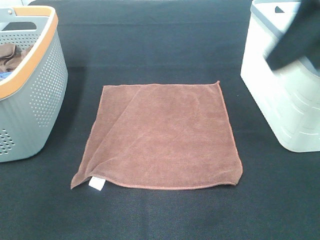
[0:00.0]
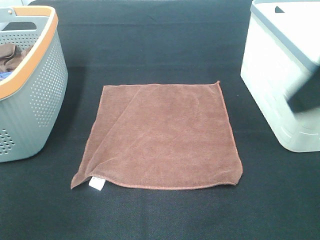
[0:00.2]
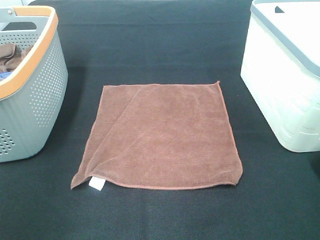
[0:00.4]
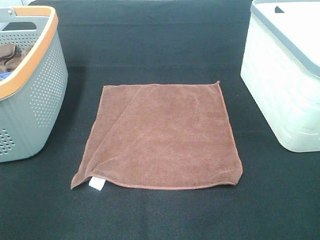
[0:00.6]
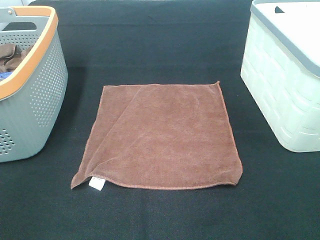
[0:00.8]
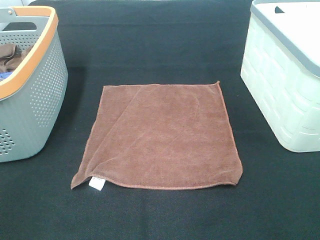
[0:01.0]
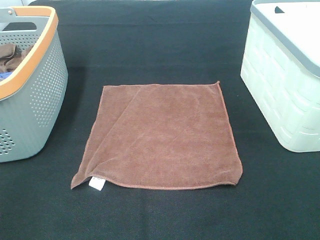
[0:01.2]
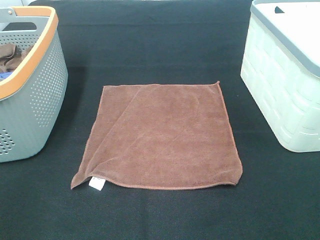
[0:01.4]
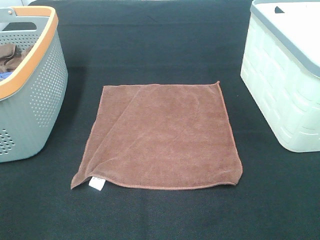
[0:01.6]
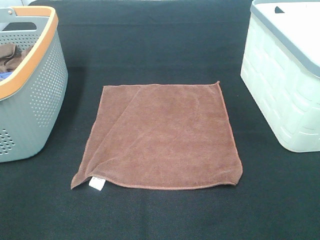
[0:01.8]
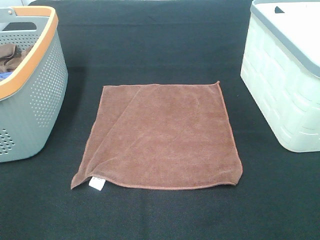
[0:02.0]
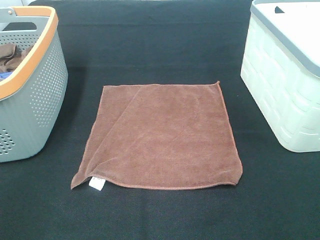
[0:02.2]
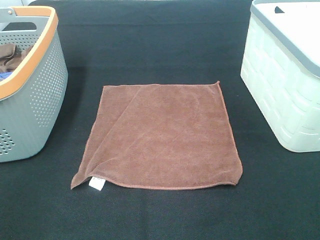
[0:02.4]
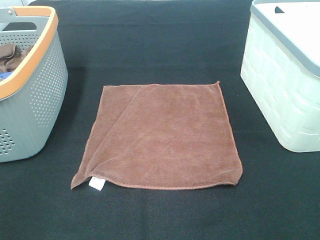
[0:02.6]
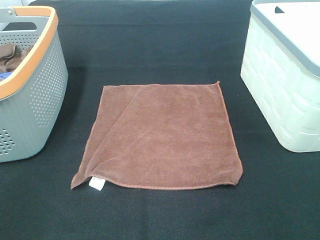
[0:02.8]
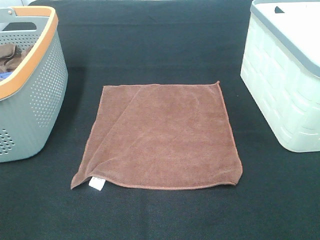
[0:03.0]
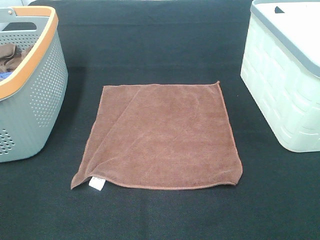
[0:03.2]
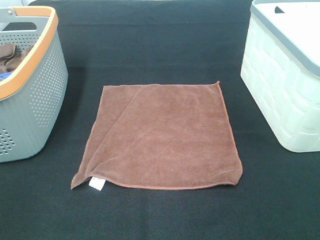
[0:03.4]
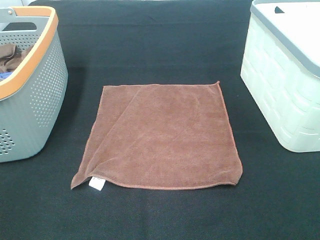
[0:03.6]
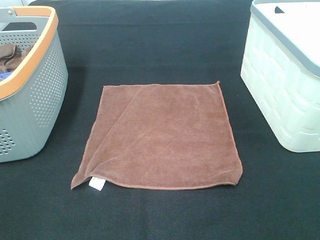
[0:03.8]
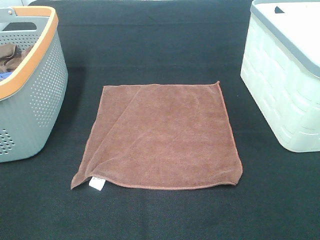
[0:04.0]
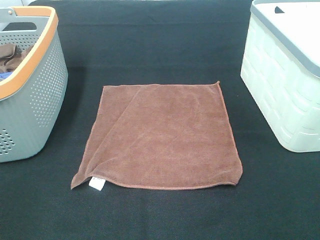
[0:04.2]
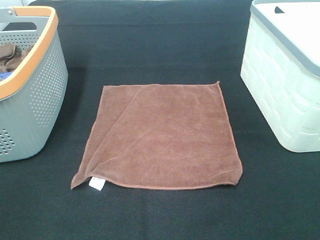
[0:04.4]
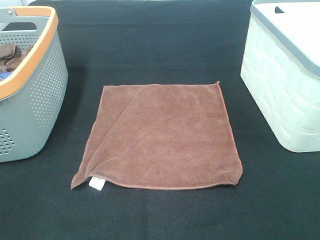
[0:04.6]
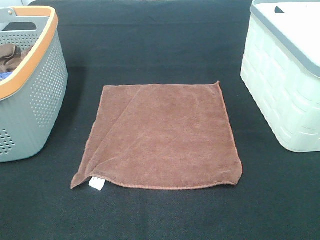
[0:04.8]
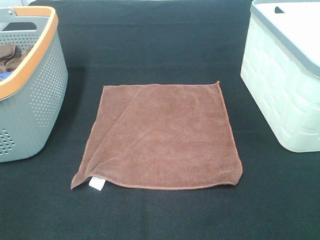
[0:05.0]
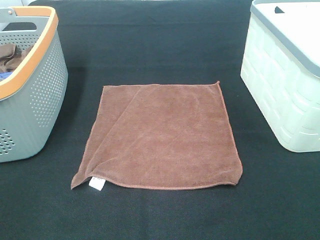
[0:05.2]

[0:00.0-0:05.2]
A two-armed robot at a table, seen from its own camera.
Task of the whole recording: Remove the towel and place it.
0:00.0 to 0:01.8: The left gripper is displaced backward, downward and to the left by approximately 20 cm; the right gripper travels backward, downward and to the right by approximately 20 cm.

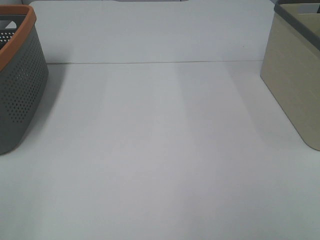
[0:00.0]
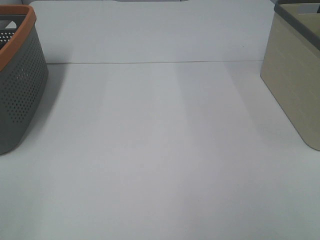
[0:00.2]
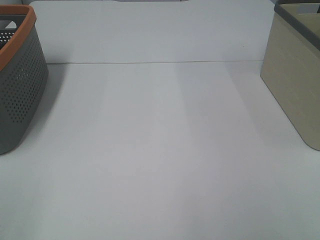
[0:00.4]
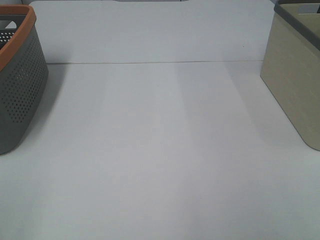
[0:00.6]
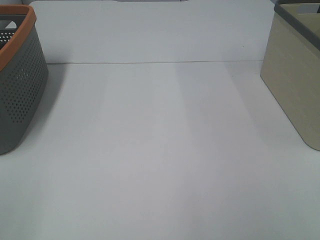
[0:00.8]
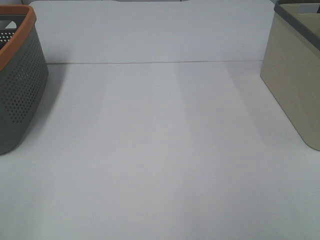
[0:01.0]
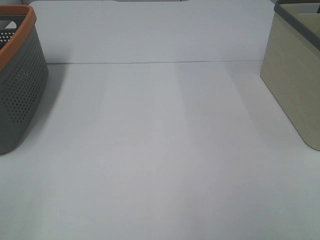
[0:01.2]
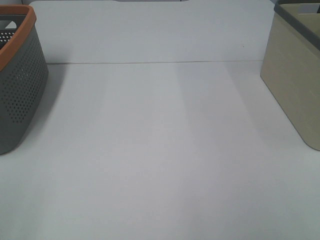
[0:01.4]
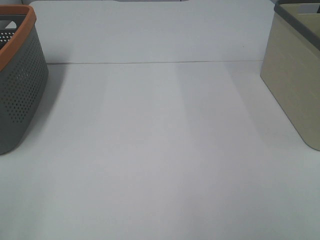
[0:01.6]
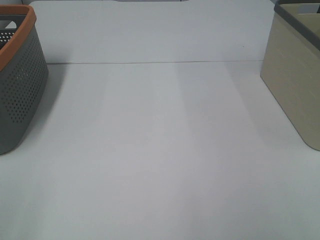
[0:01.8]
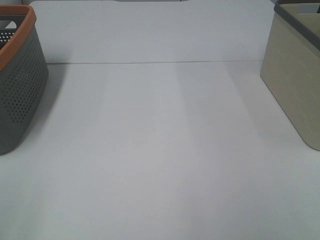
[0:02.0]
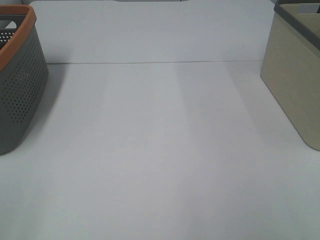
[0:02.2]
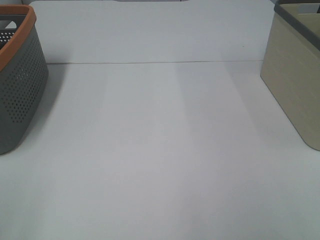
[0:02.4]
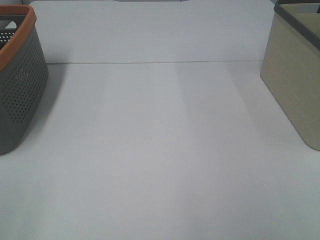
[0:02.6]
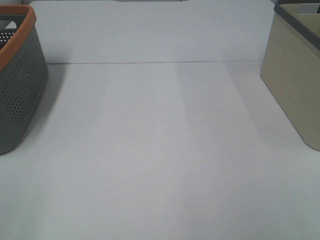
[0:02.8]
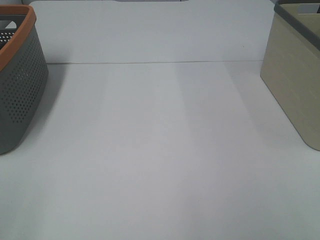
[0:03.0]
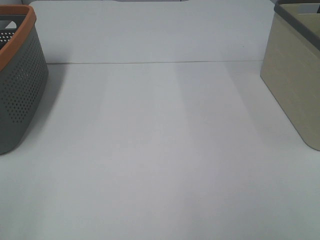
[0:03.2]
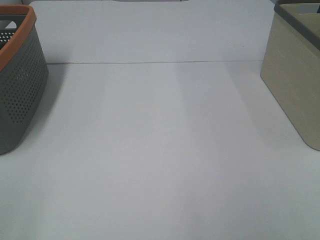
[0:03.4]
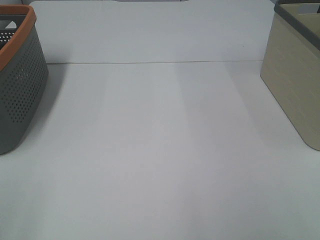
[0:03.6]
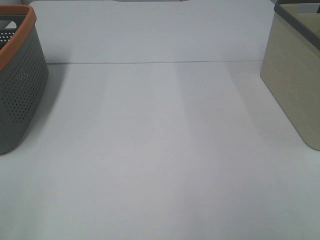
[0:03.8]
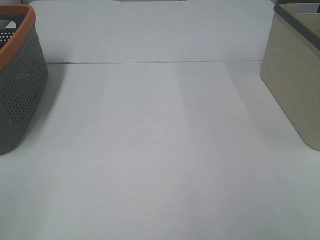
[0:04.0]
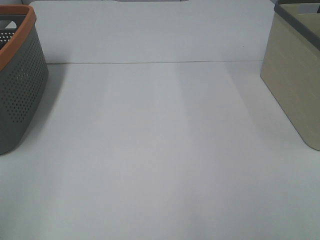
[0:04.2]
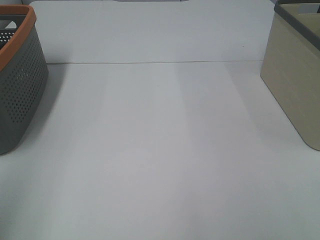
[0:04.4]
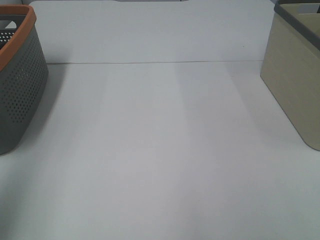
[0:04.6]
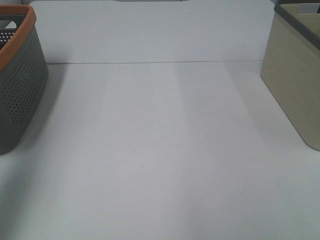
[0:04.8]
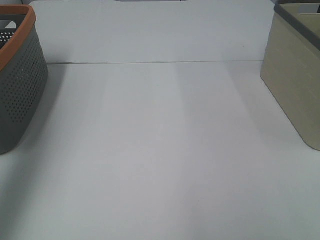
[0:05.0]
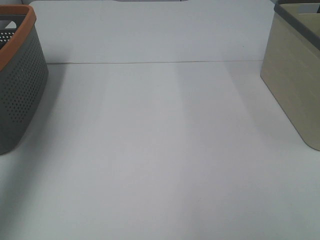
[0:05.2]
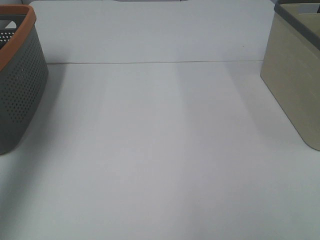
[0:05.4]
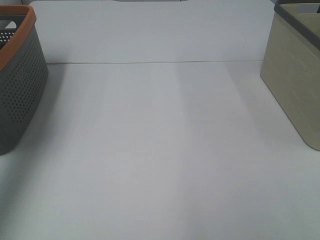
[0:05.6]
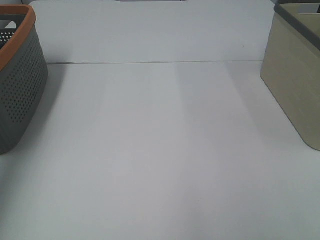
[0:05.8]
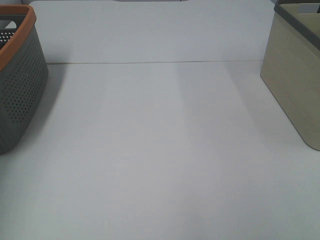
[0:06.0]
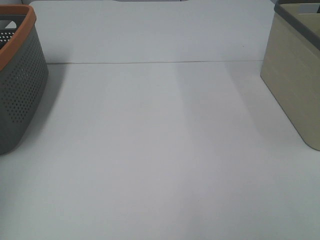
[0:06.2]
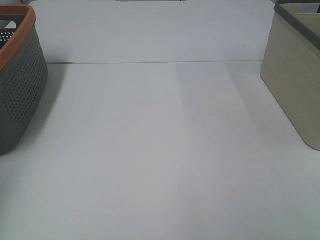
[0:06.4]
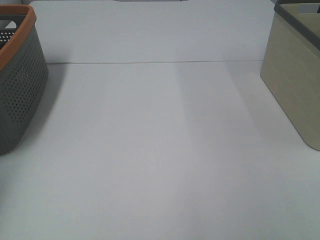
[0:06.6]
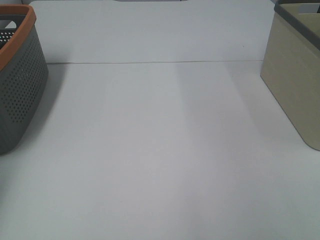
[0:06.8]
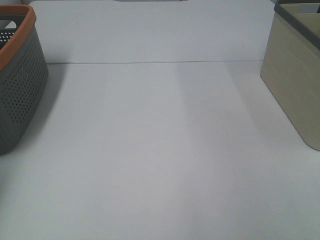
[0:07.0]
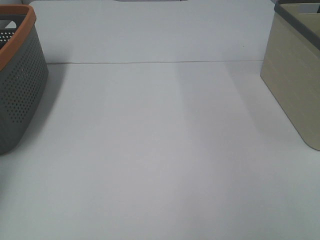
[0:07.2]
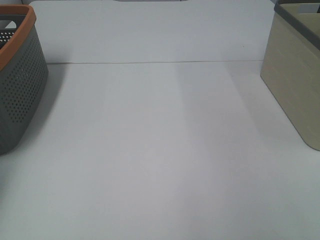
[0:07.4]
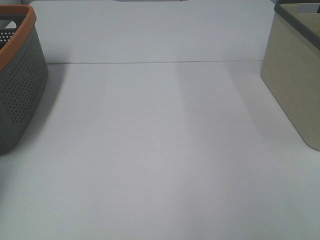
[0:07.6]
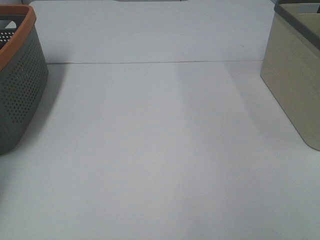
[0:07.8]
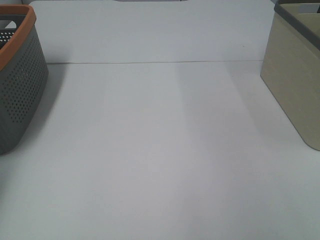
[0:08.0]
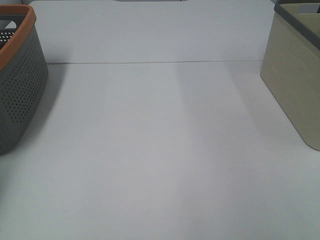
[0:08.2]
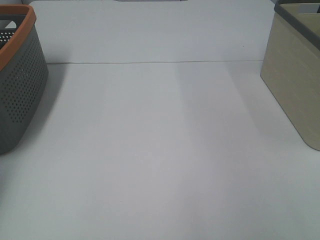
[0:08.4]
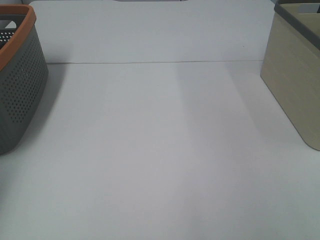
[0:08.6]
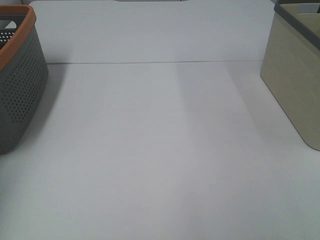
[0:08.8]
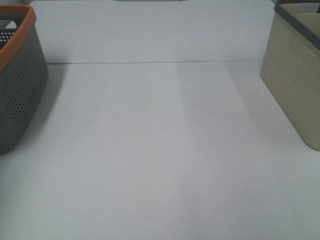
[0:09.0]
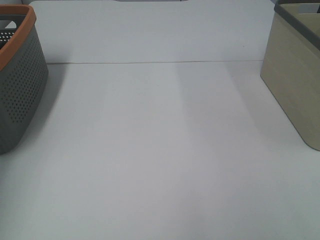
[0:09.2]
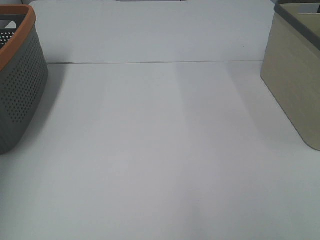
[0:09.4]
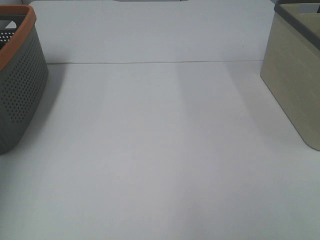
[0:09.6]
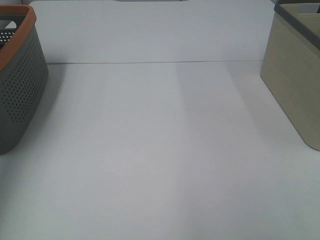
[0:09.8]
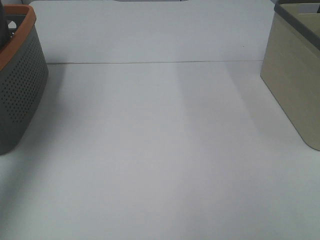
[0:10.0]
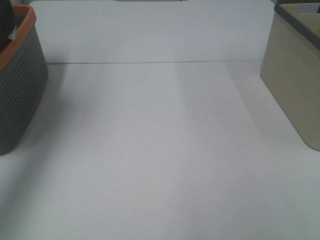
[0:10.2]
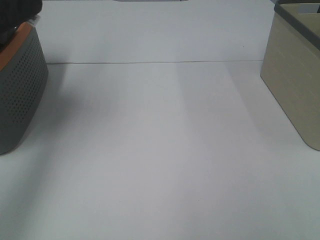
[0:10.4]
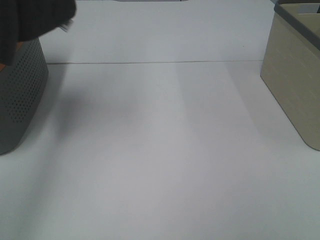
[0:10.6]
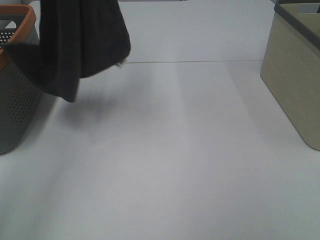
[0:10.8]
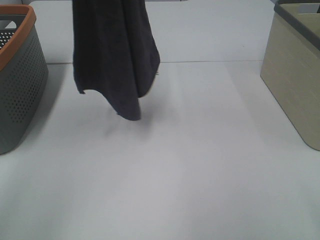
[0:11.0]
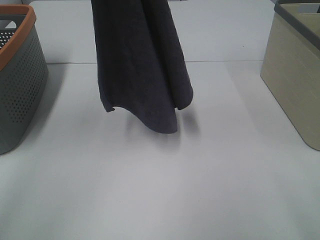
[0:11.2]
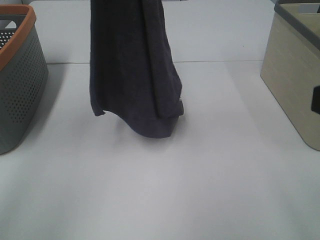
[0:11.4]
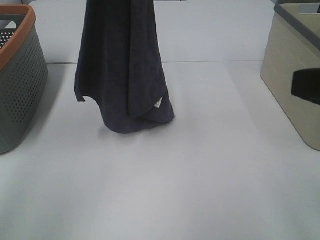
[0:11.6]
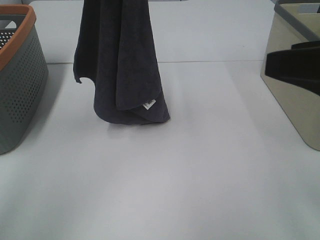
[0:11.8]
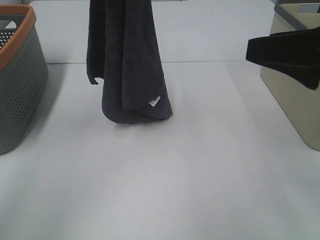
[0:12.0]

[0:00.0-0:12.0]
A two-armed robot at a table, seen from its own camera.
Task of the whole recording: Remove the towel and place it.
0:00.0 to 0:03.0: Both grippers stay about where they are.
0:09.0 to 0:10.4: The left gripper is displaced upward and to the right by about 30 cm.
0:10.4 to 0:12.0: The left gripper heads to the right and downward, covering some 20 cm. The right gripper travels forward by some 20 cm.

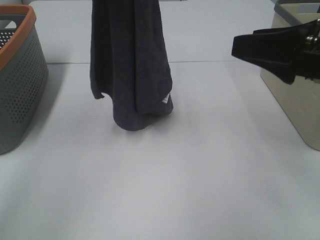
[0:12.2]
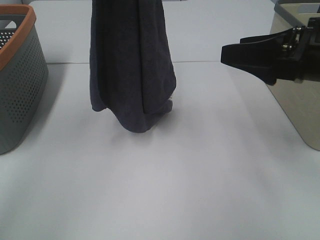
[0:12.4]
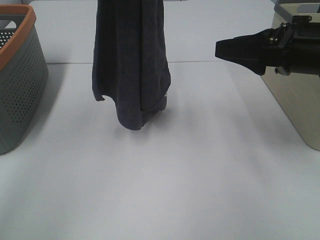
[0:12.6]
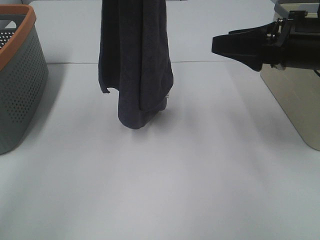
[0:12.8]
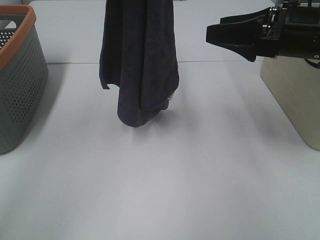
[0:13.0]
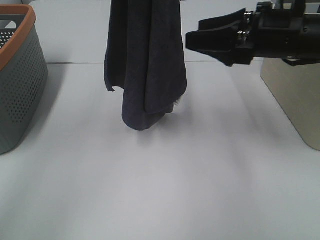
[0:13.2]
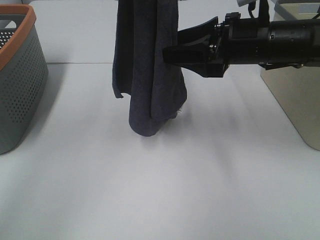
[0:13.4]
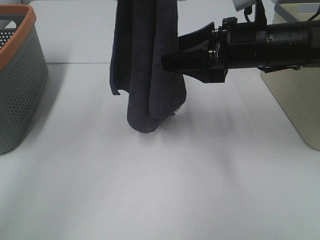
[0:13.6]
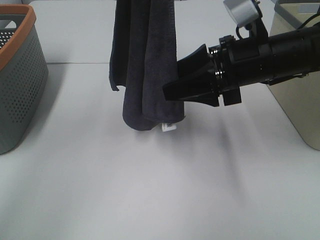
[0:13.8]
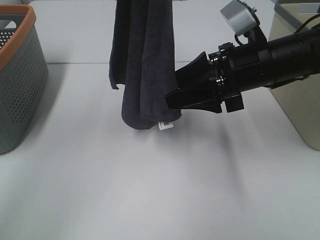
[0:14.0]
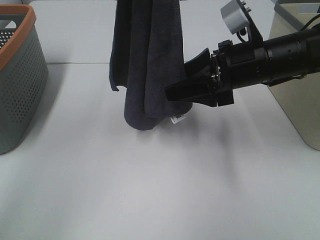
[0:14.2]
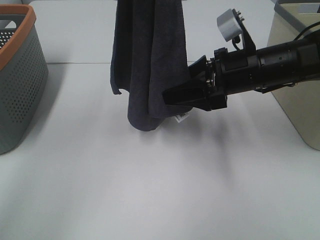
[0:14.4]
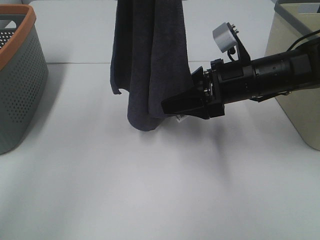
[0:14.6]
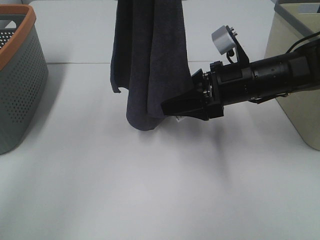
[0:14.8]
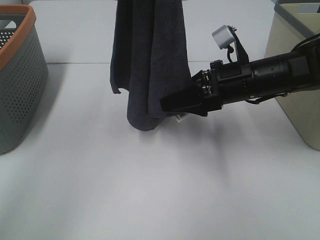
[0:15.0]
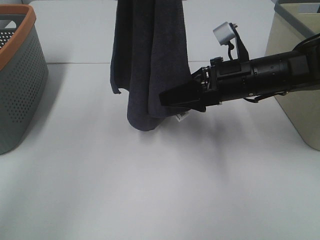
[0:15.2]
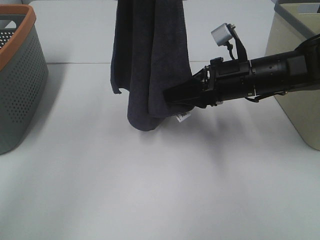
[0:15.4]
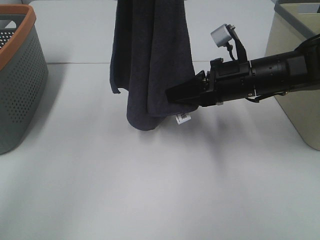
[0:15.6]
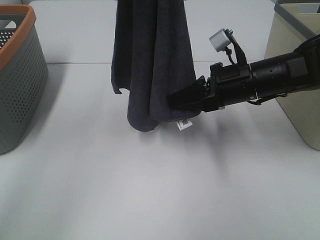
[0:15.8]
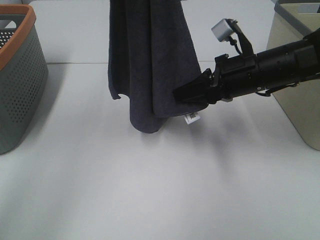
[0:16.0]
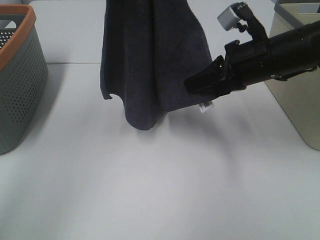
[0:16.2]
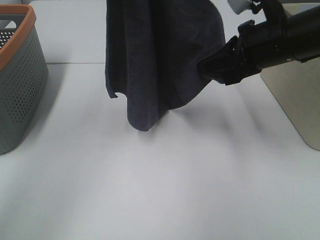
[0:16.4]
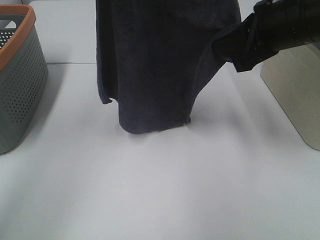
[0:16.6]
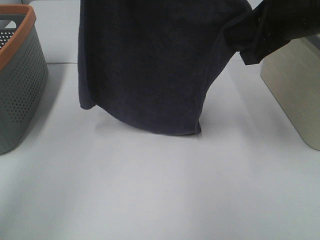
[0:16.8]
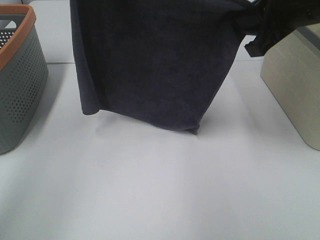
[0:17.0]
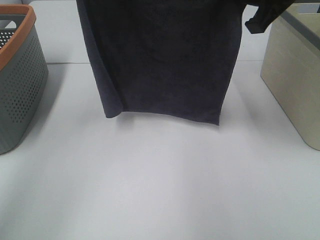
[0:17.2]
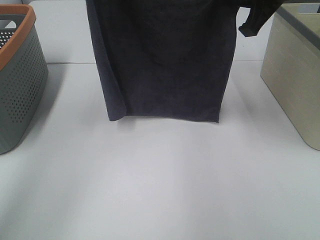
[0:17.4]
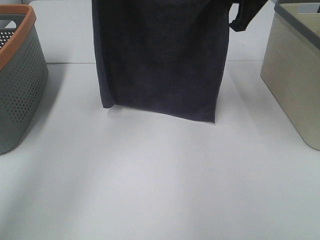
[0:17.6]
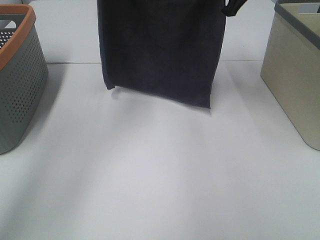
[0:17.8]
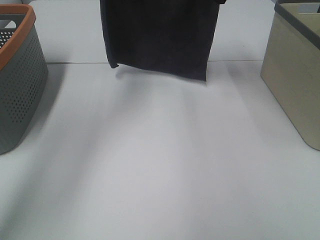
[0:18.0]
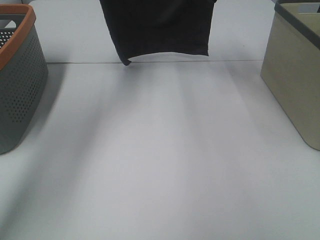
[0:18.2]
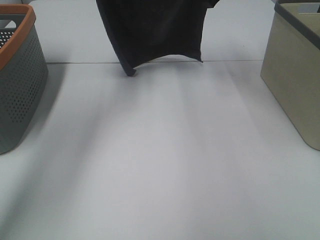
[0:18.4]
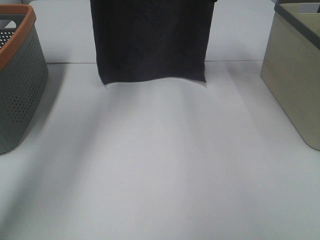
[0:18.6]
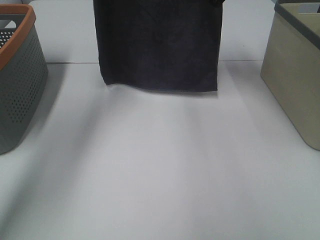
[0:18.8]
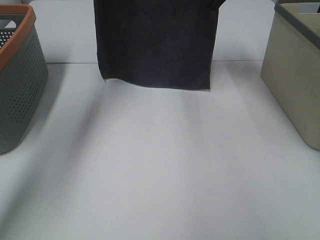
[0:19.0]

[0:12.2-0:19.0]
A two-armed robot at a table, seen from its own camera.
Task of the whole recording: Remove the towel and place it.
Step, 0:12.2 to 0:14.4: Right hand: grab a corner of the grey towel and straighten it.
Step, 0:14.6 to 0:17.0: Right hand: spread the grey towel flat on the table.
Step, 0:14.6 to 0:17.6: Left hand: spread the grey towel flat on the table.
0:12.2 to 0:13.6: The right gripper heads forward, to the left and downward, covering roughly 15 cm.
0:13.6 to 0:15.0: The right gripper moves downward, some 5 cm.
0:15.0 to 0:16.2: The right gripper ends up roughly 5 cm from where it was, and closes.
0:16.2 to 0:17.6: The left gripper is displaced forward and downward by some 10 cm; the right gripper heads upward and forward, covering approximately 15 cm.
0:17.6 to 0:19.0: The right gripper travels forward by approximately 15 cm, while the left gripper shifts roughly 10 cm forward and downward.
